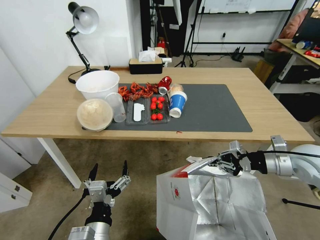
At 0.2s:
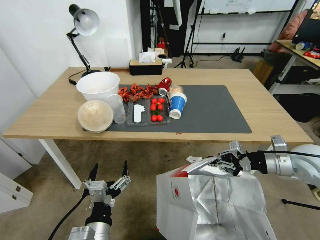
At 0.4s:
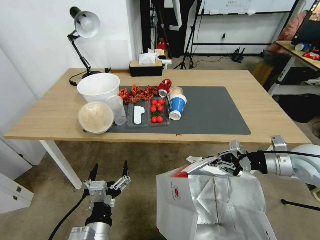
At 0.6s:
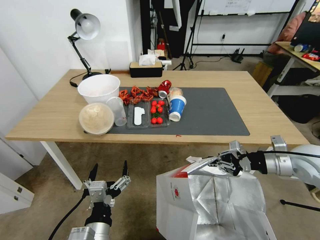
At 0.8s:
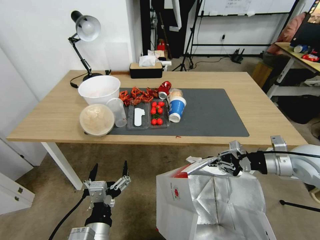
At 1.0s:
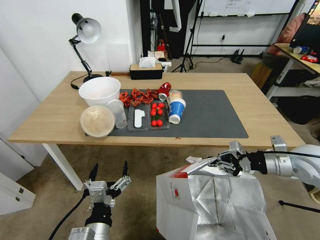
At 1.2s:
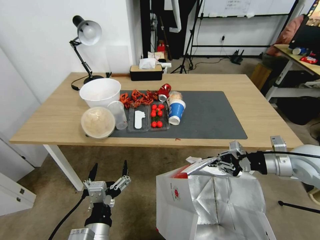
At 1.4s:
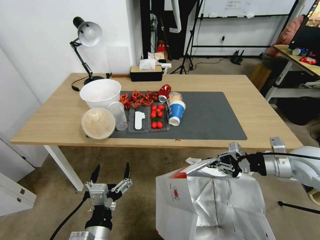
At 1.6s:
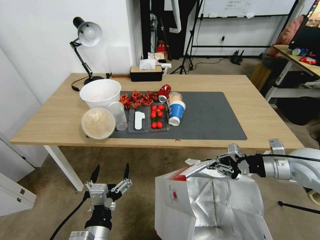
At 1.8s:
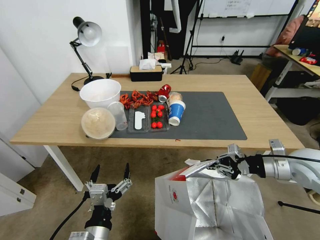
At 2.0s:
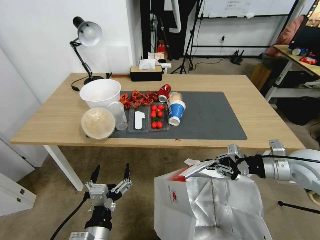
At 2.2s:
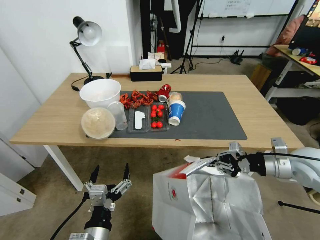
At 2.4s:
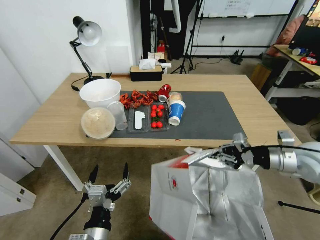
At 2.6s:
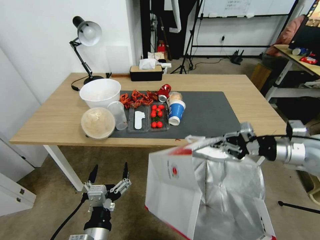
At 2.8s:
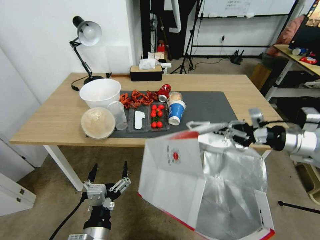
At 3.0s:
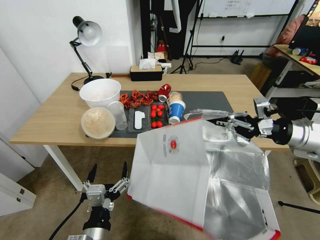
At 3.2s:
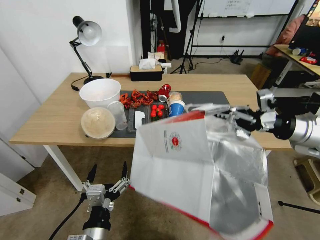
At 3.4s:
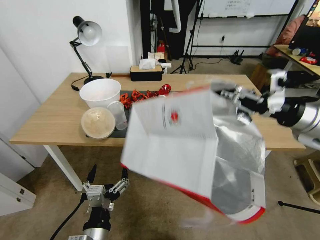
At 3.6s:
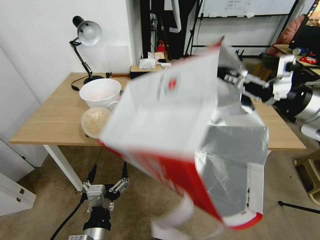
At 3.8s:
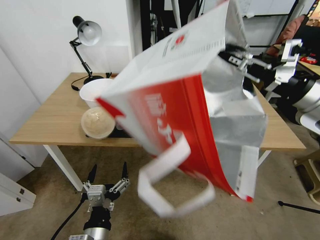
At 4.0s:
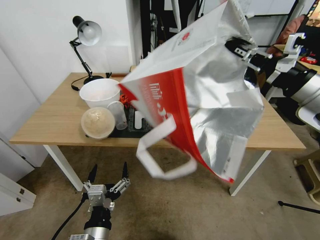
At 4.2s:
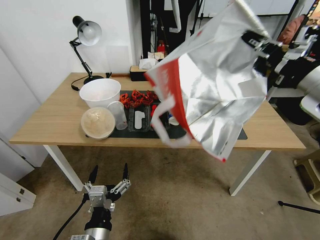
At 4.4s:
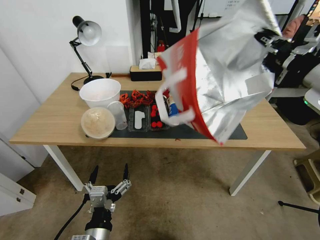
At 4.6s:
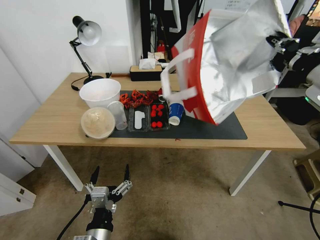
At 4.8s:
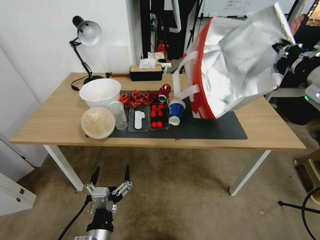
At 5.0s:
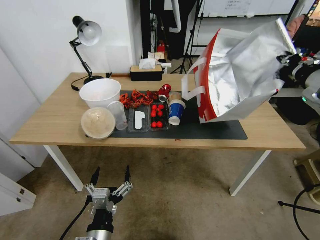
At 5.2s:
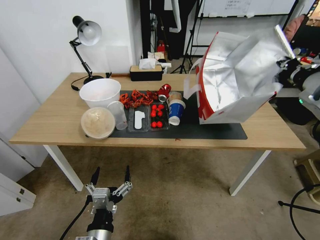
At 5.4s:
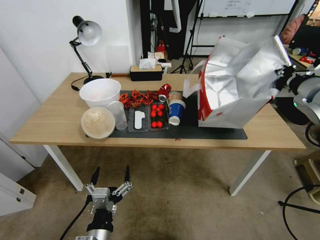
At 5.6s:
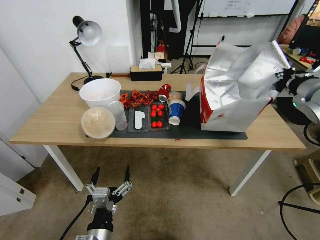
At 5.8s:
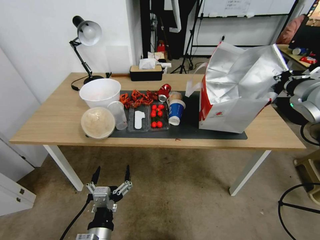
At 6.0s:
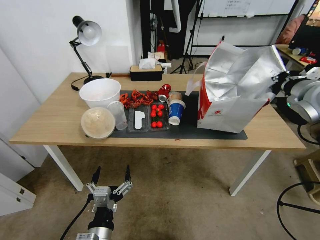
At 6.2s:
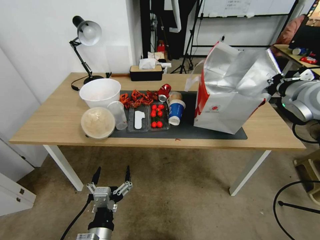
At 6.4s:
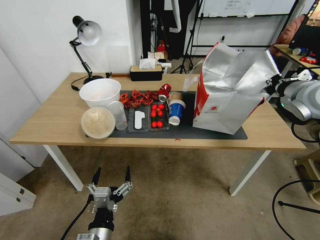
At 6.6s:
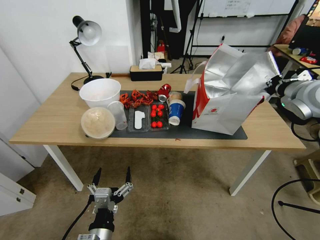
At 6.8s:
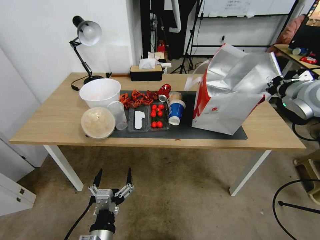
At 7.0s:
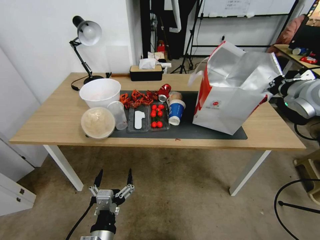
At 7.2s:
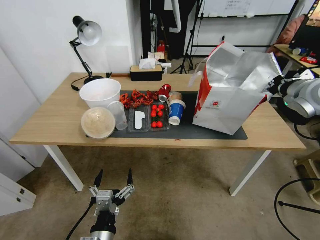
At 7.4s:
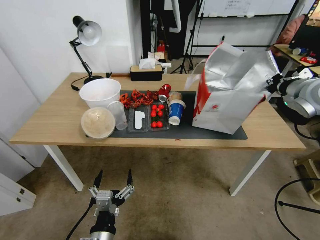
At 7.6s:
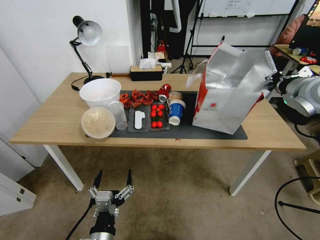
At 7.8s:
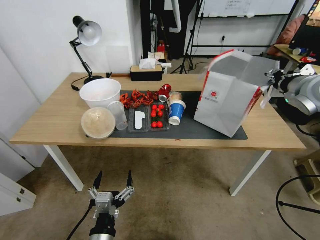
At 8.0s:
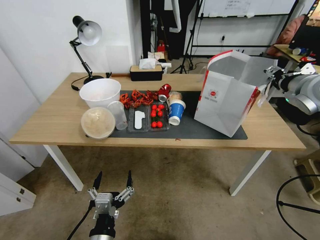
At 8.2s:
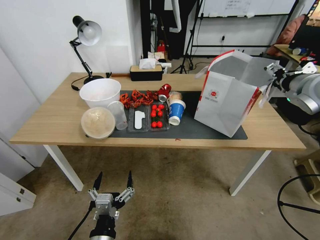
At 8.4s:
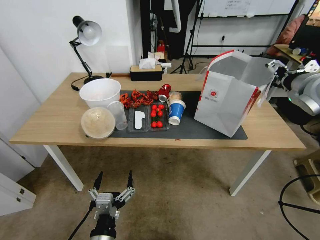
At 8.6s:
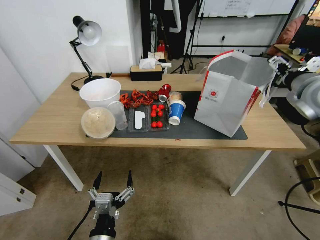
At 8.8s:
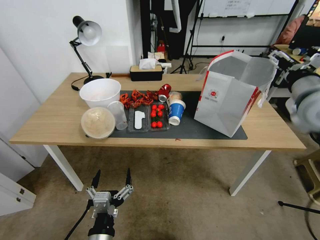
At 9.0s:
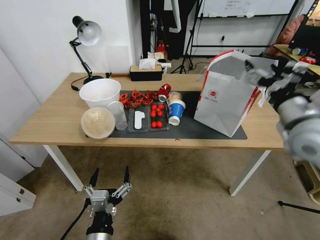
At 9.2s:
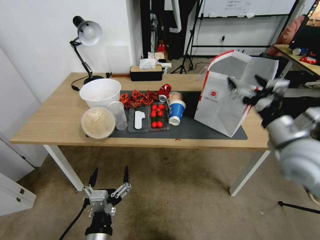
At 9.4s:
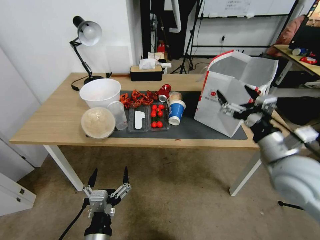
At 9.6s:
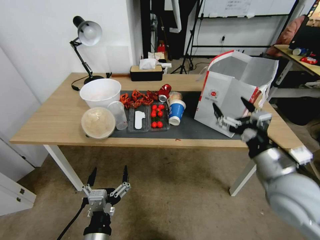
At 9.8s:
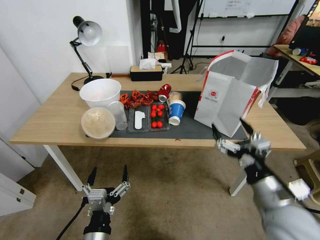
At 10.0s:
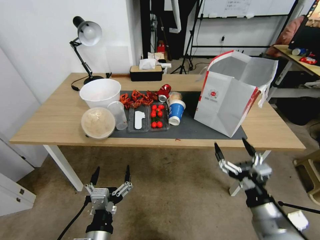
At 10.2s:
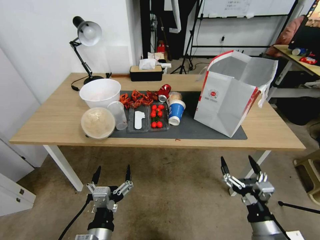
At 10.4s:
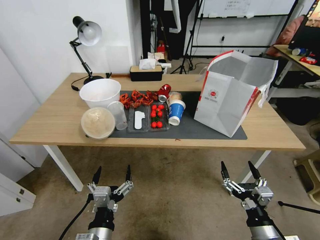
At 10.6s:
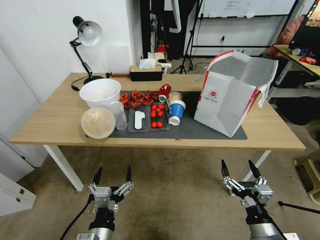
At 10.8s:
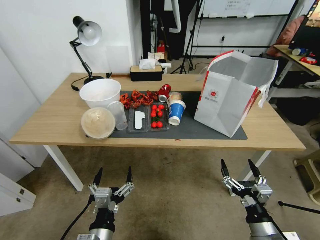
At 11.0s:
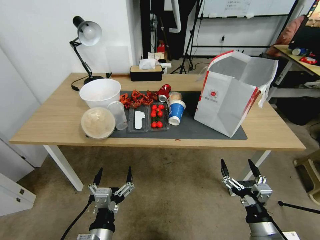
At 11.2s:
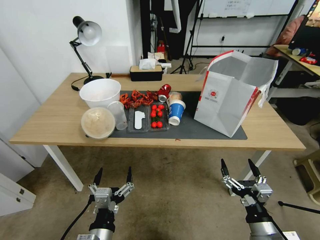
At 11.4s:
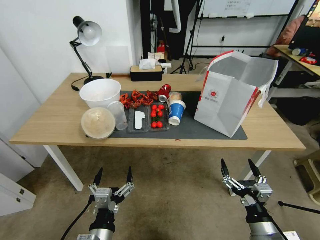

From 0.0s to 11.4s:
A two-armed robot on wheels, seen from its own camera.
Task of the whole recording: Pick up the food delivery bag from the floor and place it on the table.
From 1.4s to 2.8s: The right gripper moves upward, about 5 cm.
From 2.8s to 4.2s: The right gripper shifts approximately 15 cm upward.
From 4.2s to 5.6s: The right gripper shifts roughly 5 cm forward.
From 5.6s to 7.2s: The grippers stay close to where they were, moving slightly.
From 7.2s to 8.6s: The right gripper opens its fingers.
From 8.6s to 10.0s: The right gripper moves backward, downward and to the left, some 35 cm.
From 10.0s to 11.4s: The right gripper heads downward, covering some 10 cm.

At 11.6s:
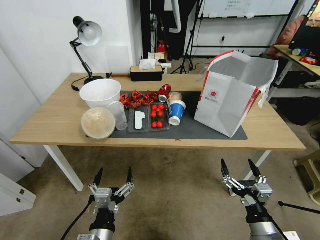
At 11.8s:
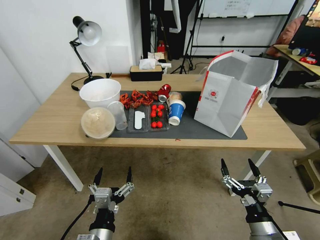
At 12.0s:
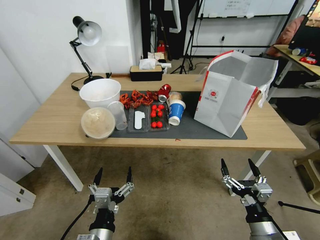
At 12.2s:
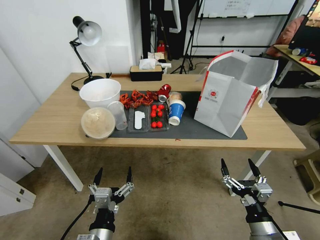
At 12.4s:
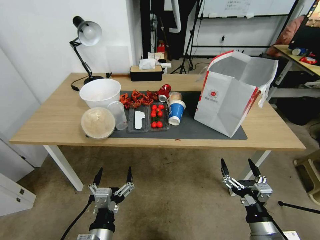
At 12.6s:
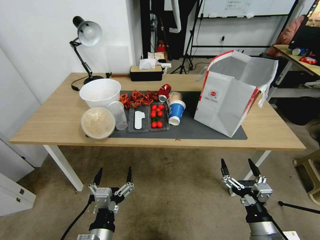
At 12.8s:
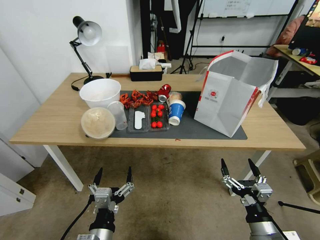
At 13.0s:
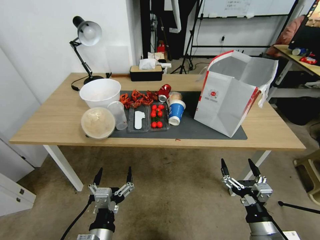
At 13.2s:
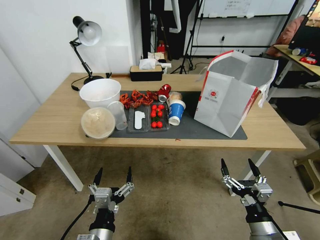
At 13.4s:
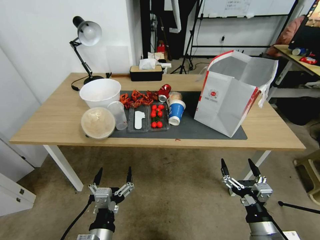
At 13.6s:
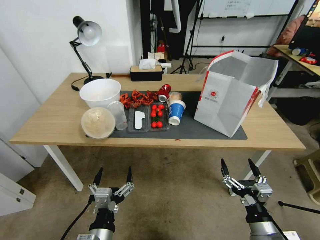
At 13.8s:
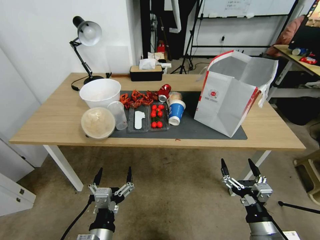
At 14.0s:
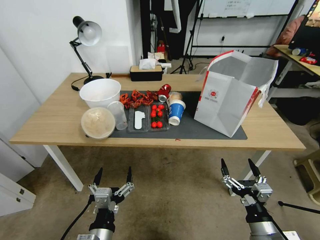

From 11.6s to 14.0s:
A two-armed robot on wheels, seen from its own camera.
Task of the whole recording: Pick up the food delivery bag from the floor and place it on the table.
From 11.6s to 14.0s: Neither gripper changes place.

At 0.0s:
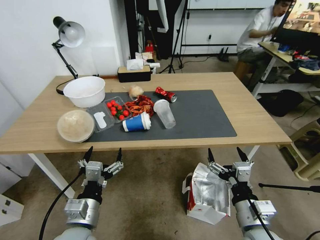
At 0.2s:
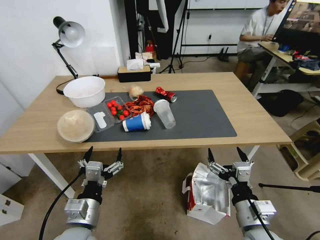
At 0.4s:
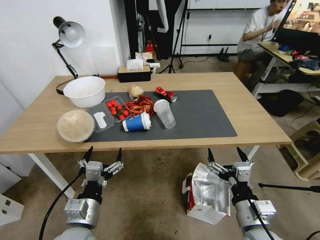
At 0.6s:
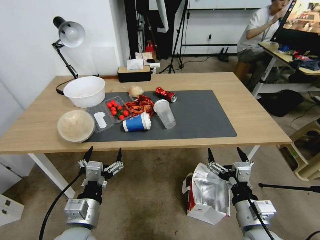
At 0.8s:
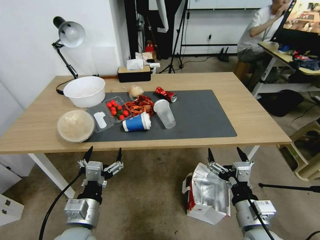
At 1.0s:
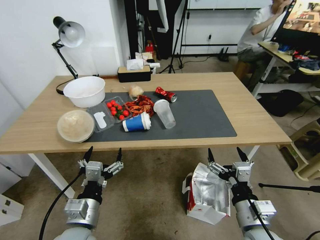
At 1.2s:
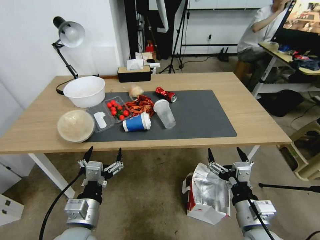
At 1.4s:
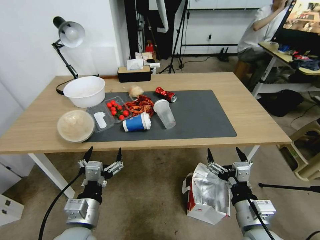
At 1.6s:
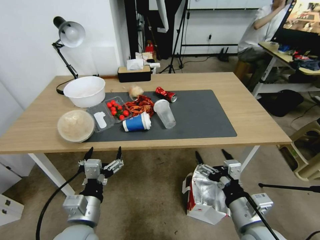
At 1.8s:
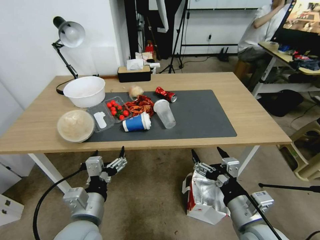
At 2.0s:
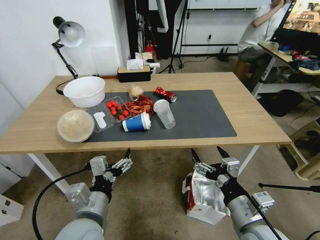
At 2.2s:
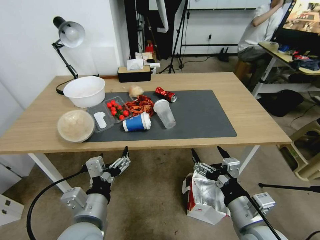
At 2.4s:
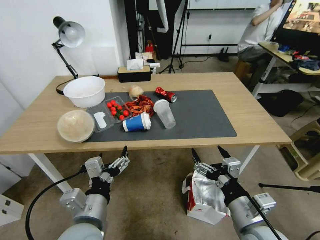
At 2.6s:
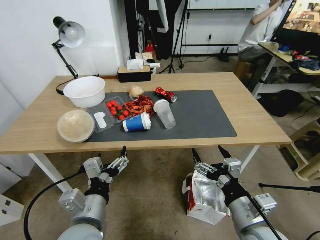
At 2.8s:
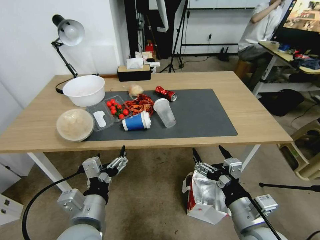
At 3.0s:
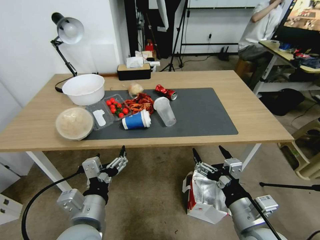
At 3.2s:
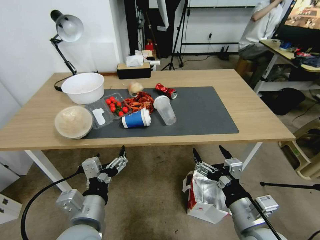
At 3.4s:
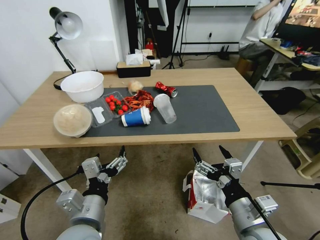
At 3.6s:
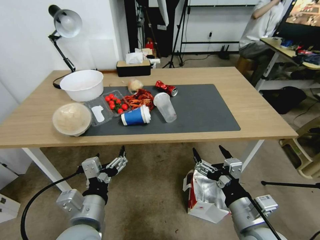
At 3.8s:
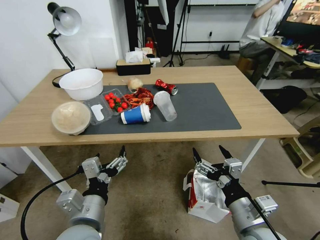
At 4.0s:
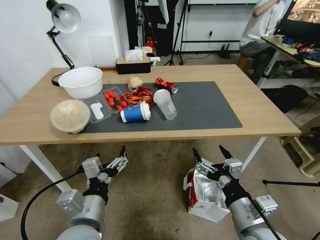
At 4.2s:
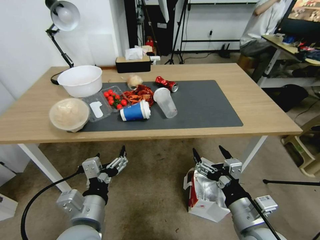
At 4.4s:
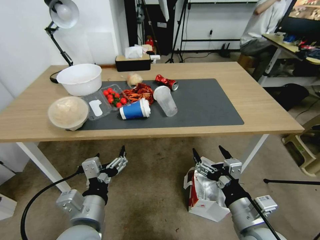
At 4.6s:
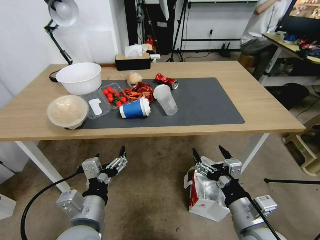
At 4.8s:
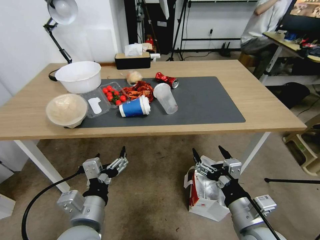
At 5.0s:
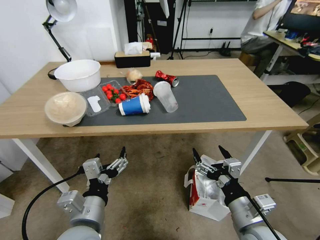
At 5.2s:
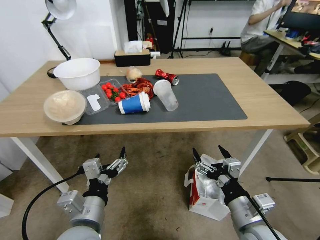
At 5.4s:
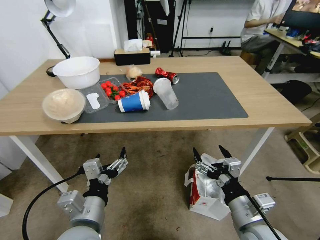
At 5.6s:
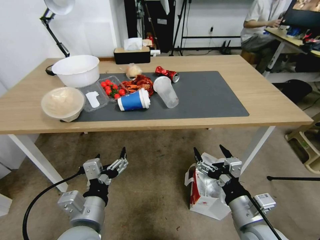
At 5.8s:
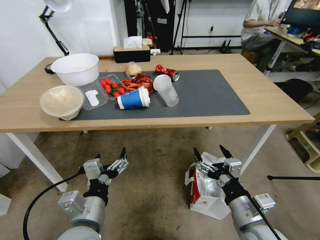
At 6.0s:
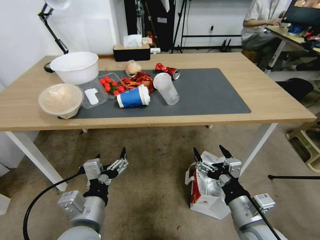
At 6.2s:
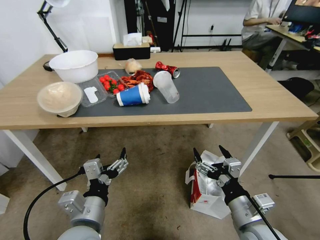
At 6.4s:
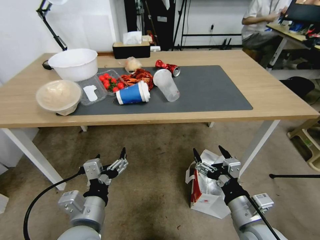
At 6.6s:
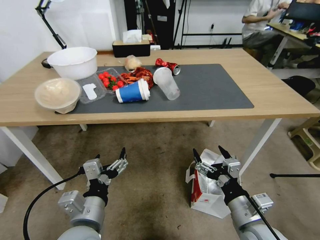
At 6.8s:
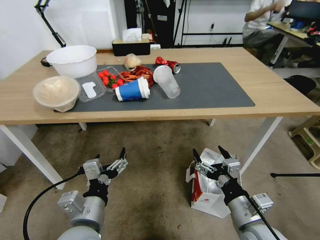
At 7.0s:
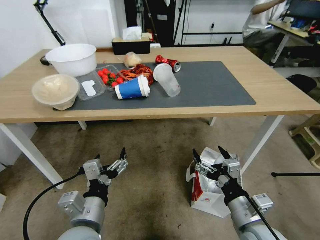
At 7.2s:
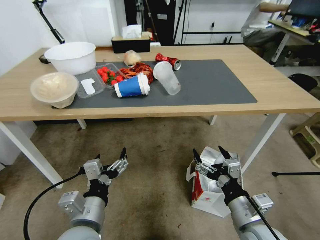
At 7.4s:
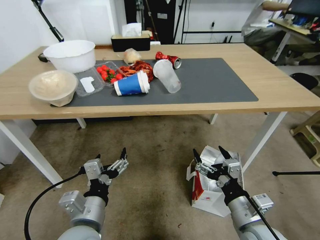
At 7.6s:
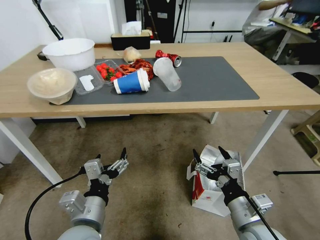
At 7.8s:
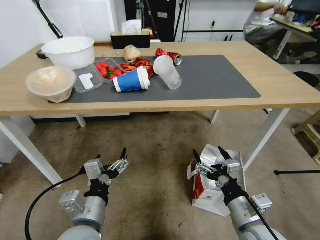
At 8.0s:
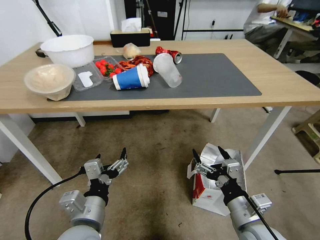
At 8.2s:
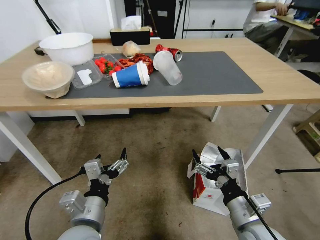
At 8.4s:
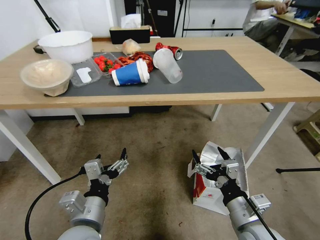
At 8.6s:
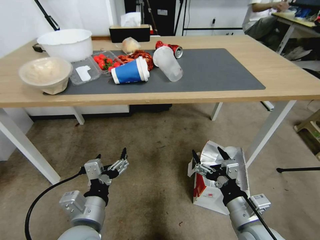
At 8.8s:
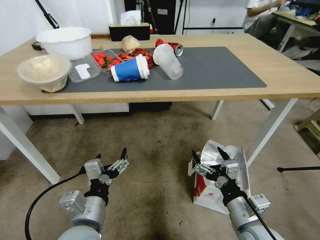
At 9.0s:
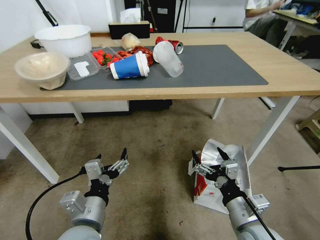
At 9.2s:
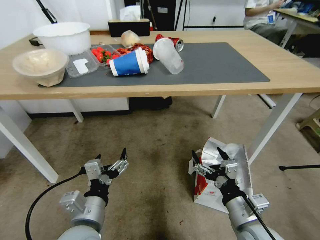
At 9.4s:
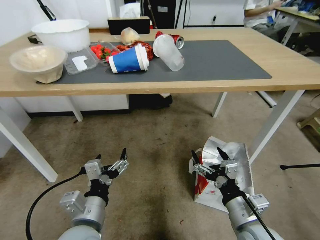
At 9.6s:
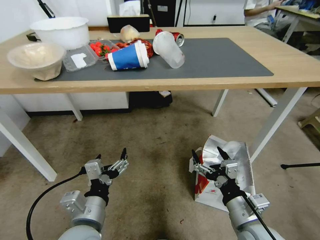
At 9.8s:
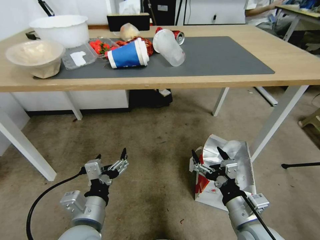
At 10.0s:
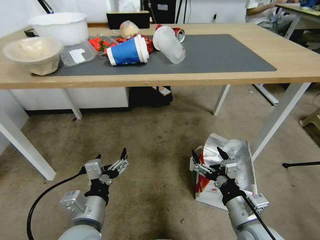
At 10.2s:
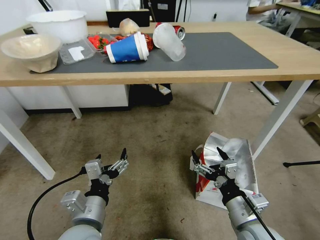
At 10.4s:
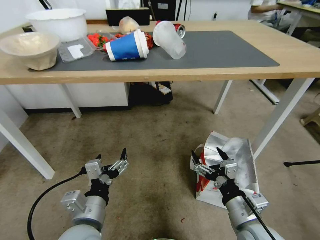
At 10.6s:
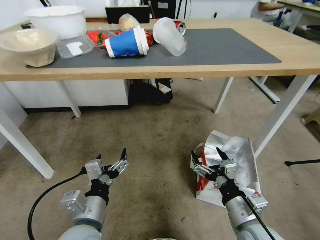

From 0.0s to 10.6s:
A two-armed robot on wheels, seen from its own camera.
Task of the whole recording: Pick up the food delivery bag from the floor and place it on the table.
From 1.6s to 3.0s: The left gripper changes place by some 5 cm.
